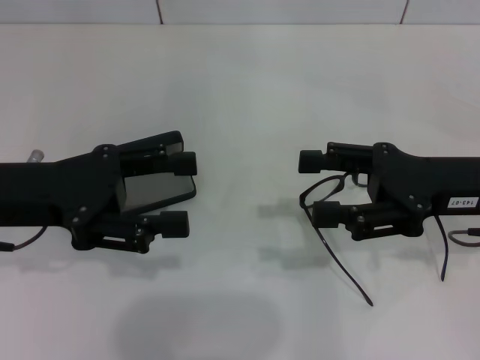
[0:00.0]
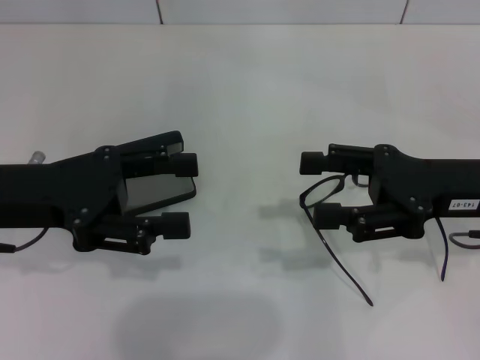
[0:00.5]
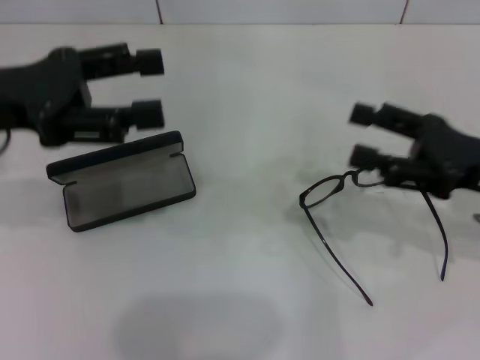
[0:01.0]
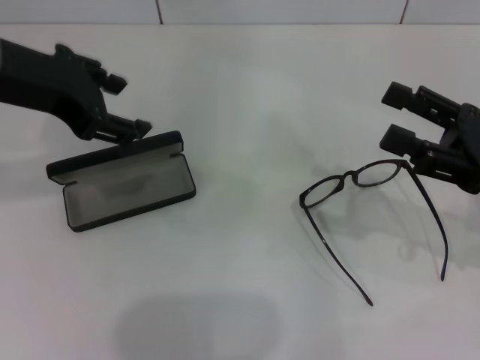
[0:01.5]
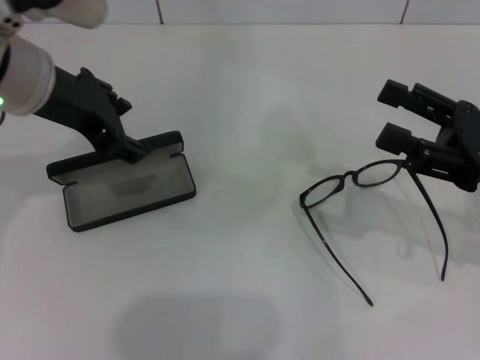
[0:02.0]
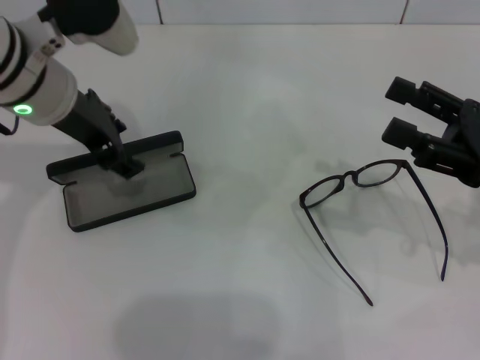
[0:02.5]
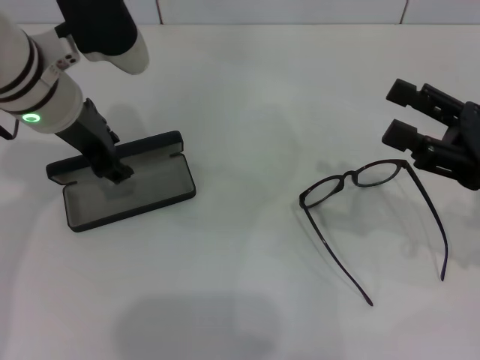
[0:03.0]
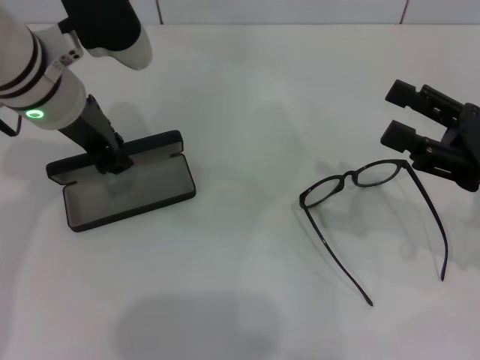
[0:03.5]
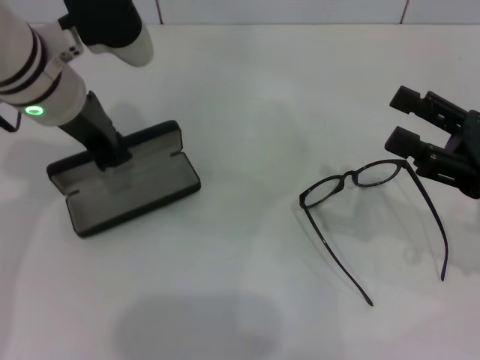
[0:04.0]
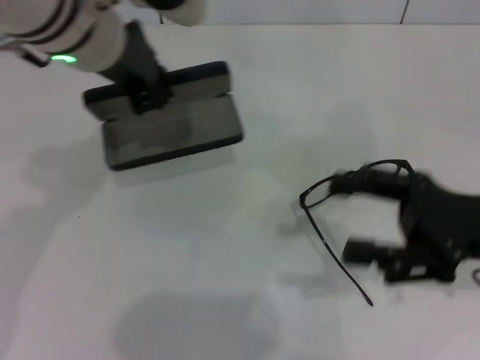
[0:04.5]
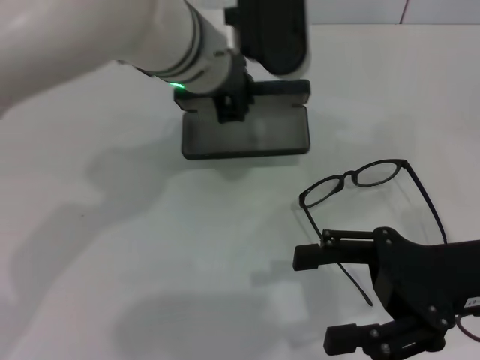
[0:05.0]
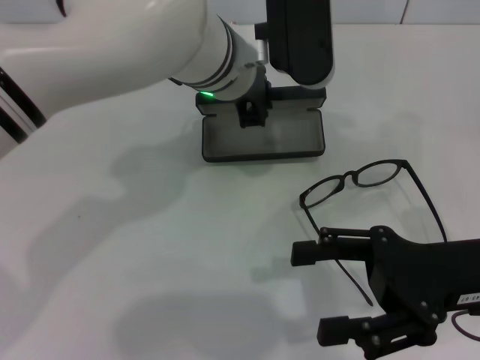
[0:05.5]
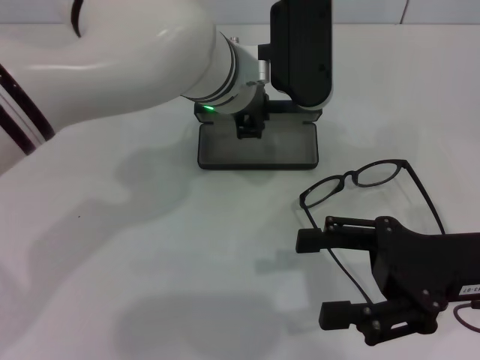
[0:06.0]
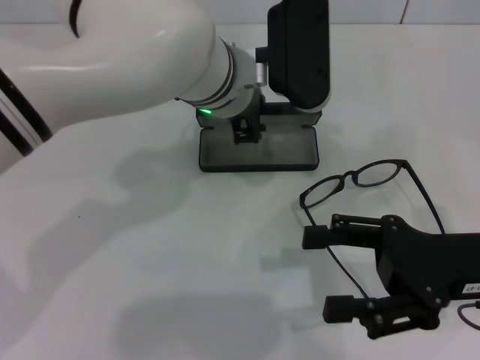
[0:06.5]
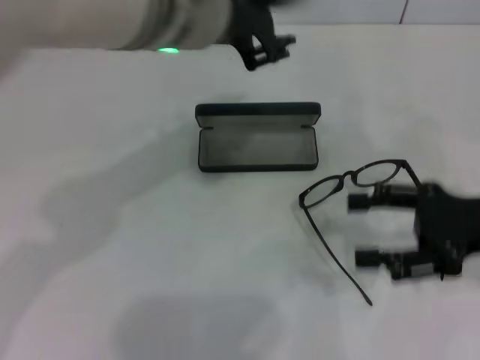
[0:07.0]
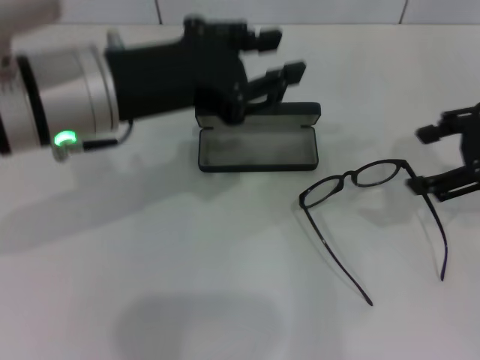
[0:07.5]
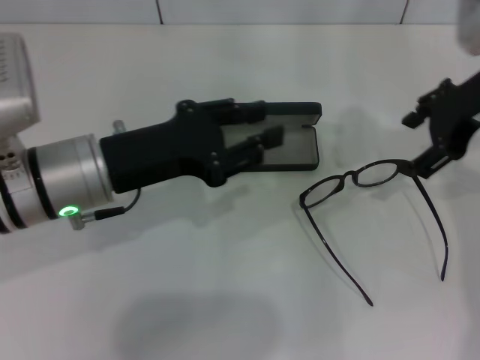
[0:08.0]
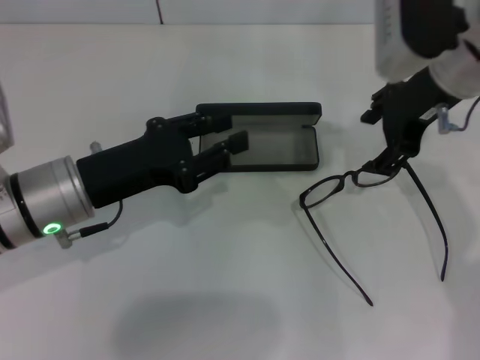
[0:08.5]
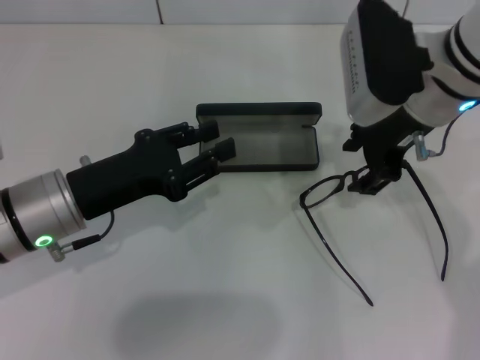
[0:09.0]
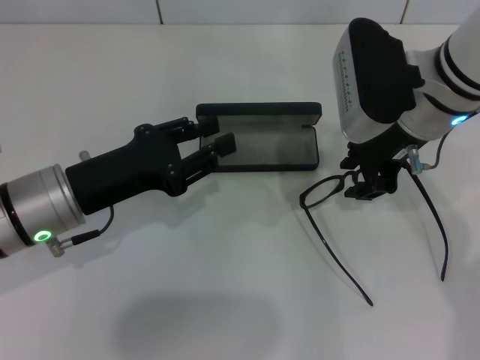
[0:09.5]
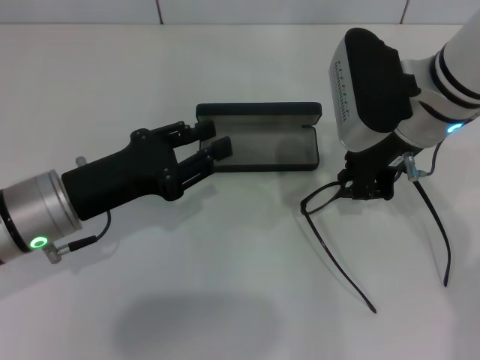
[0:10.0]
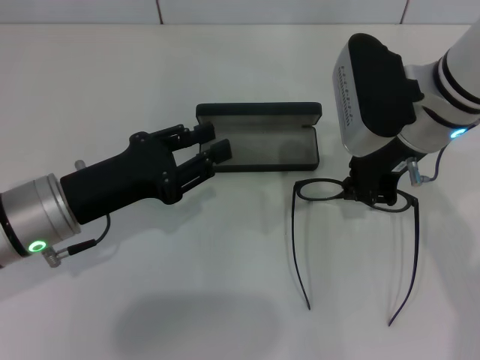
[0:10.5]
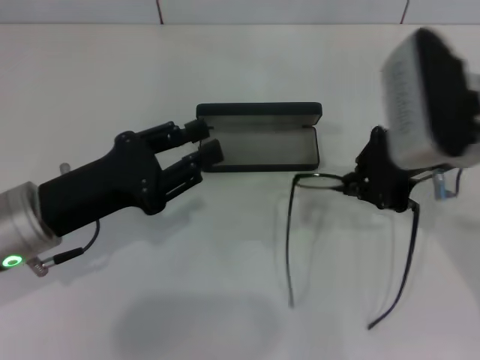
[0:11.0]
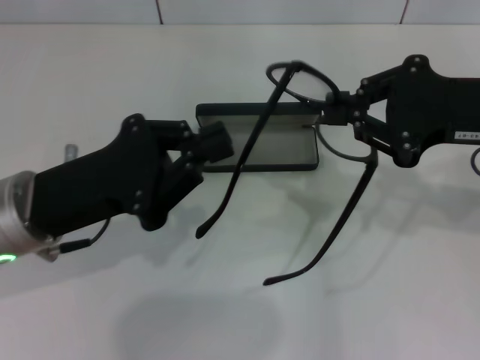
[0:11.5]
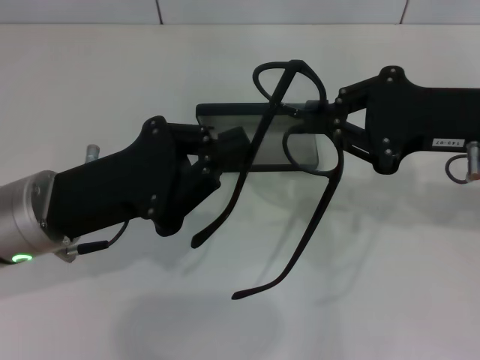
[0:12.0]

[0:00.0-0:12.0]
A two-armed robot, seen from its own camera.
Step, 0:00.0 to 0:03.5: Grab the glasses case with your left hand.
Step, 0:04.0 to 0:06.5: Place the glasses case in the center of the table with your left hand.
Step, 0:07.0 to 0:10.0: Grab the eyeglass frame with your right hand.
0:00.0 to 0:02.0: The right gripper ends up some 5 cm from where it was. Meanwhile the left gripper shifts roughly 10 cm upward, forward and to the right.
0:02.0 to 0:04.0: The left gripper shifts by some 5 cm, and closes.
0:04.0 to 0:06.0: The right gripper heads to the left, covering approximately 5 cm. Meanwhile the left gripper is displaced to the right by some 15 cm.
0:06.0 to 0:08.0: The left gripper goes some 15 cm to the left and backward. Meanwhile the right gripper travels forward and upward by about 20 cm.
0:08.0 to 0:10.0: The left gripper ends up some 5 cm from where it was, while the right gripper goes approximately 10 cm to the left, and closes.
0:10.0 to 0:12.0: The left gripper closes its fingers, while the right gripper moves to the right and backward, some 10 cm.

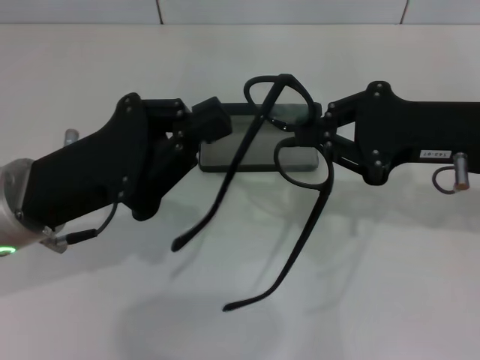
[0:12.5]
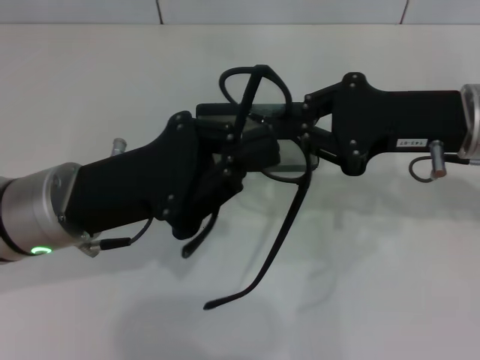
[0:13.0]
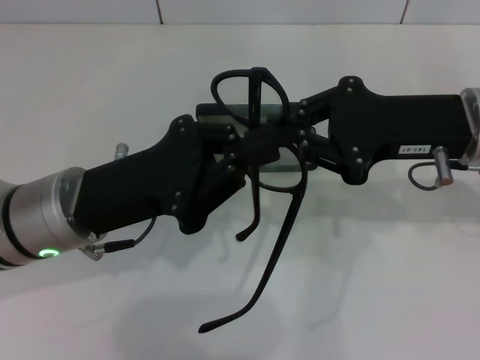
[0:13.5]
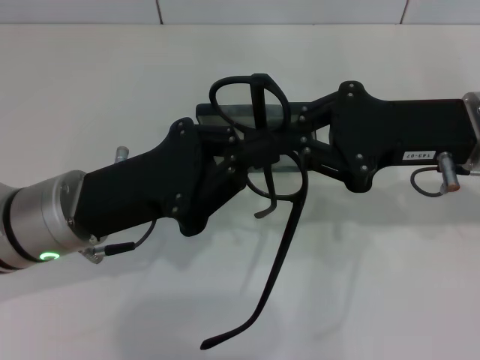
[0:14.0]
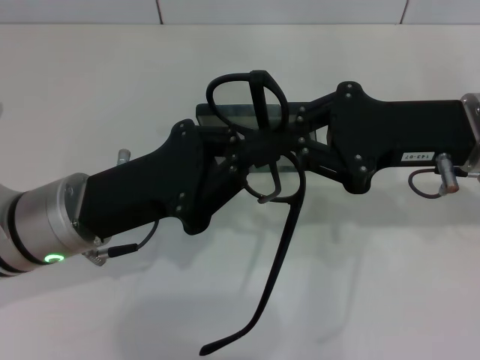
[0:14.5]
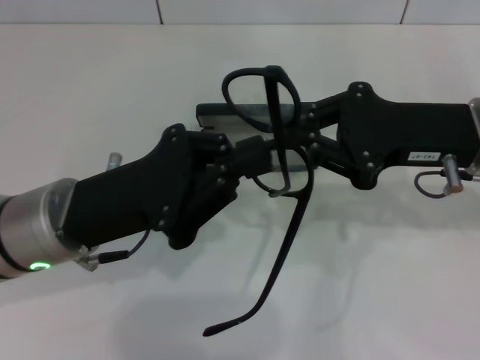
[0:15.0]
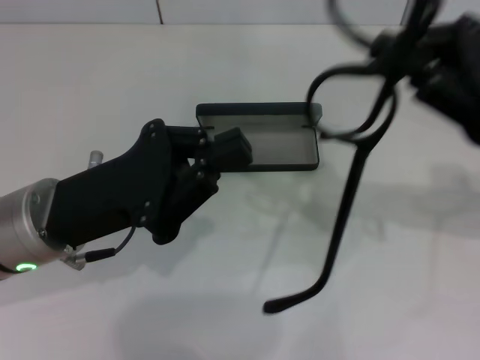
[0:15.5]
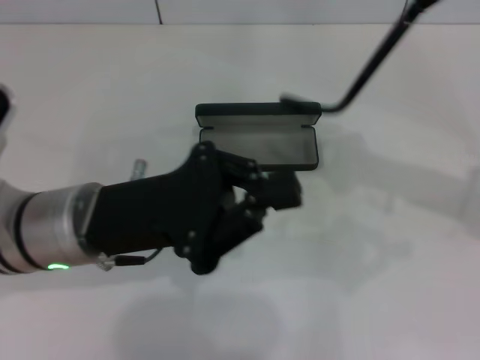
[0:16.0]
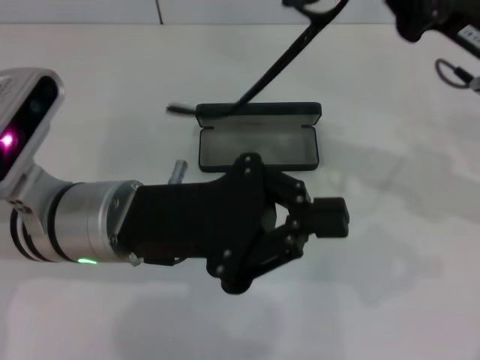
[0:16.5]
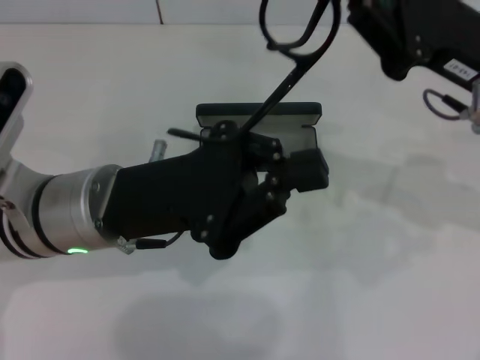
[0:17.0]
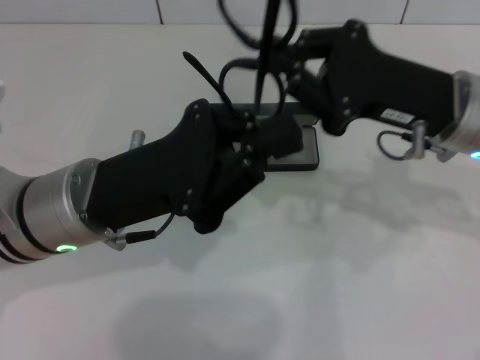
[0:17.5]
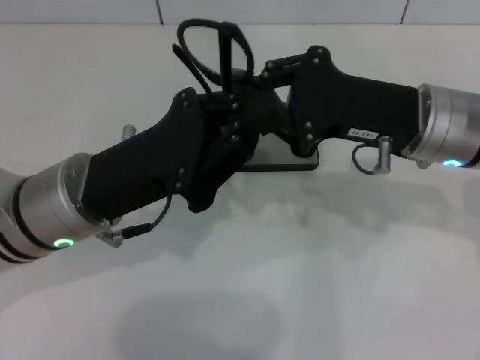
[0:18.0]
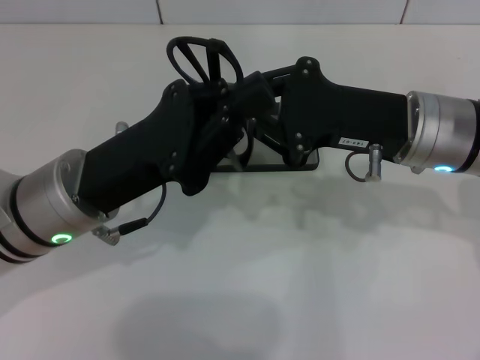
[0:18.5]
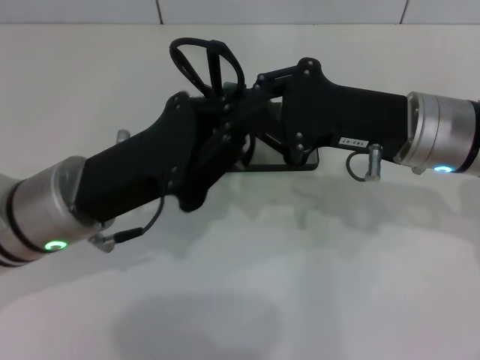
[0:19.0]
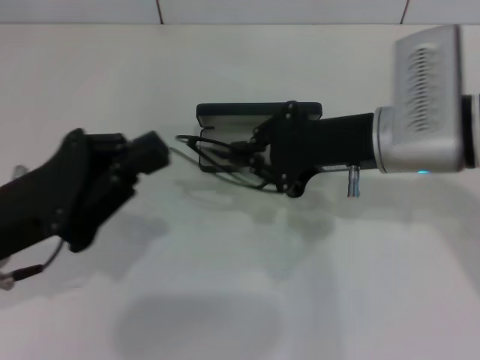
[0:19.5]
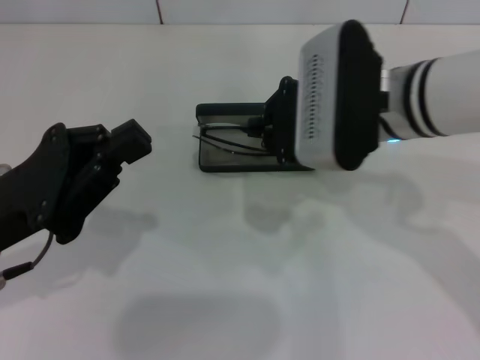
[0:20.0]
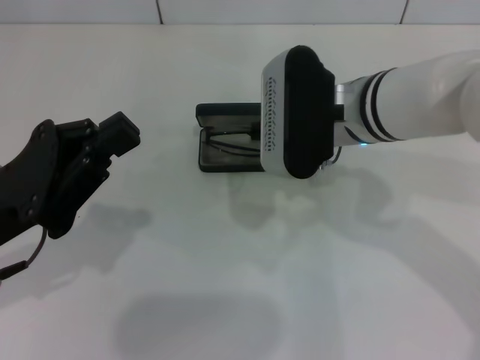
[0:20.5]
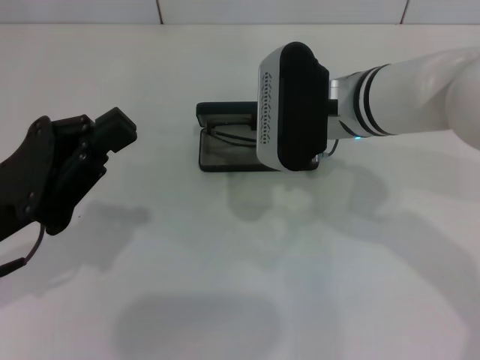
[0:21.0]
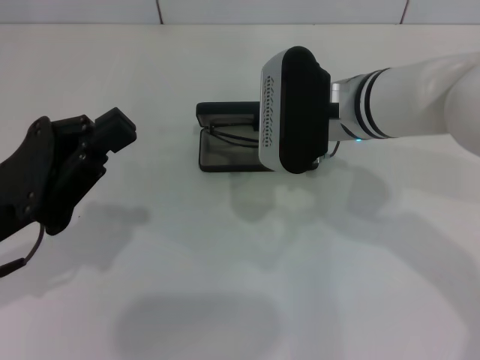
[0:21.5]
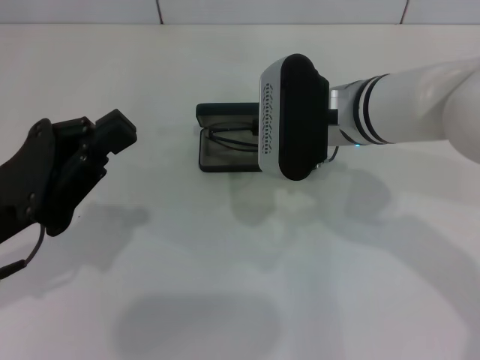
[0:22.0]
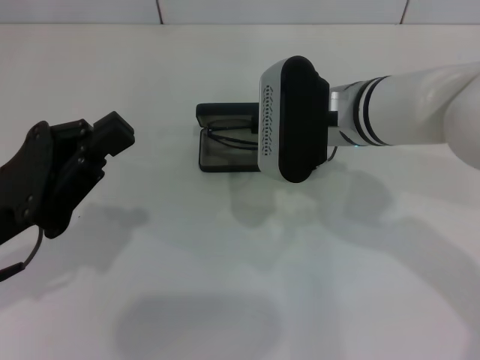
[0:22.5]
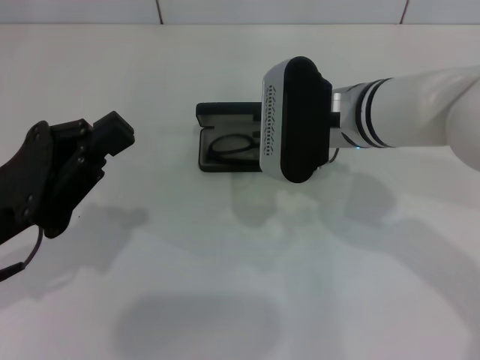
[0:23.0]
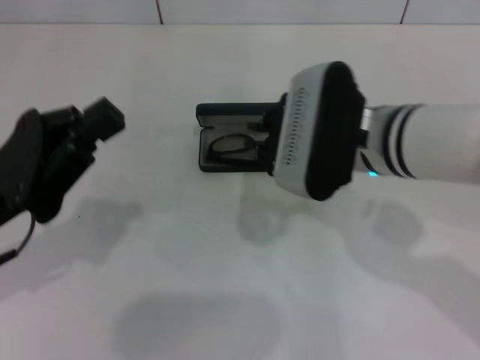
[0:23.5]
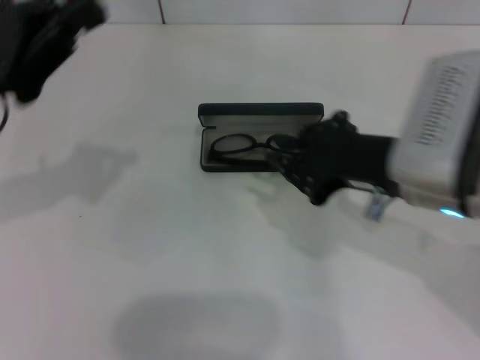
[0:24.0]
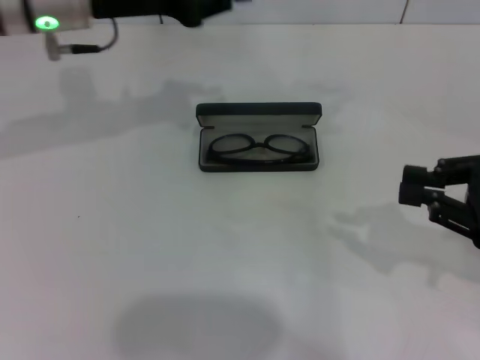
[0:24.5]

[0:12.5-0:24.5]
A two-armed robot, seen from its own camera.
Step, 0:12.5 to 0:18.5: Fold the frame with your left hand.
Step, 0:19.0 to 0:23.0: Put the glasses into the case with your right hand.
0:16.5 to 0:18.5: The right gripper moves to the left, about 5 cm.
0:18.5 to 0:20.5: The grippers both shift to the left by about 10 cm.
0:20.5 to 0:22.5: There are only small adjustments of the grippers.
0:22.5 to 0:24.5: The left gripper travels forward and upward by roughly 20 cm. Meanwhile the right gripper goes about 25 cm to the right and backward.

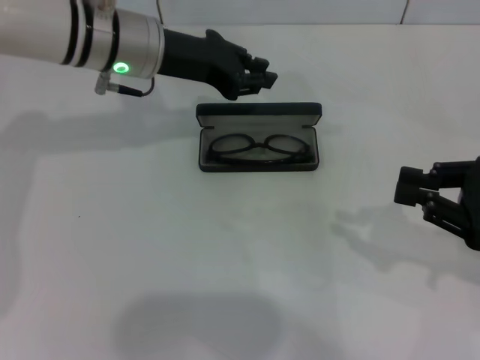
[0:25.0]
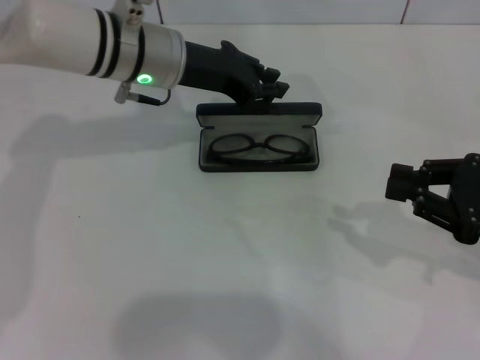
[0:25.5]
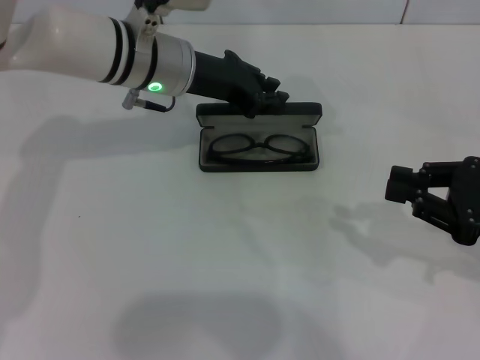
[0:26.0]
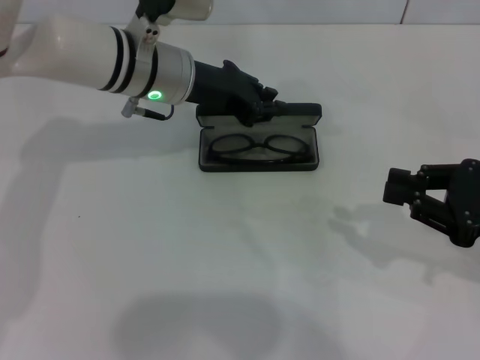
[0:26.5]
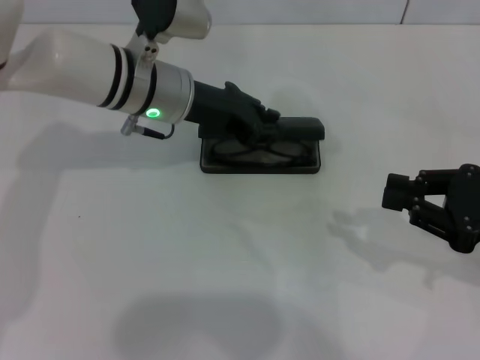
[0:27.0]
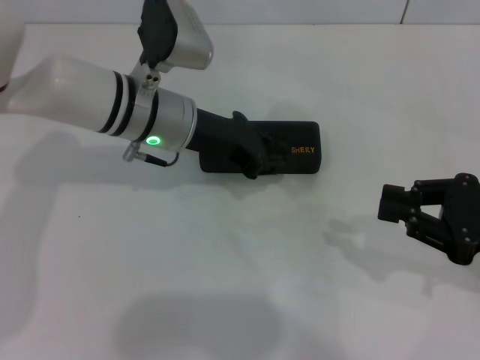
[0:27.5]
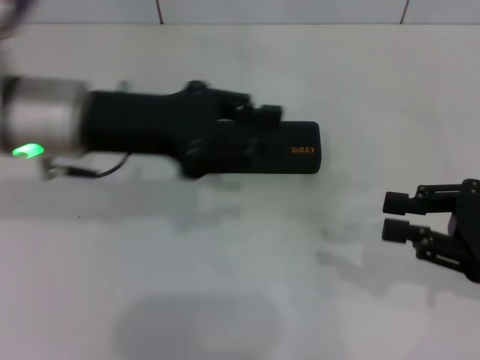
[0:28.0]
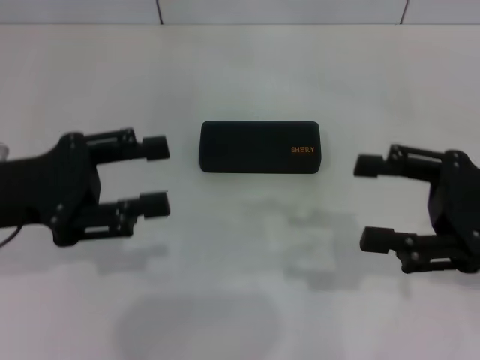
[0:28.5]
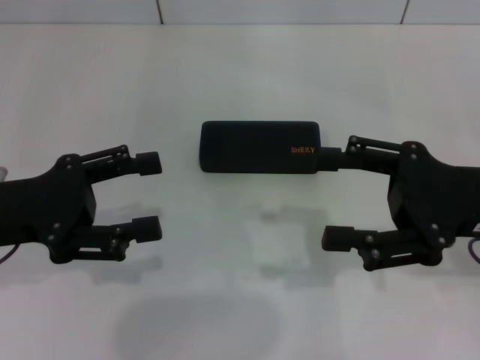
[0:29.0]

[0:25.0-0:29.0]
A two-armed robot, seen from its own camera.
Step, 0:25.0 to 0:27.0: Close the glasses case with your left hand.
0:25.0 to 0:27.0: The grippers move only a little.
0:27.0 to 0:29.0: The right gripper moves to the left, some 5 cm, and opens up. The left gripper is displaced backward and to the left by some 25 cm, and opens.
